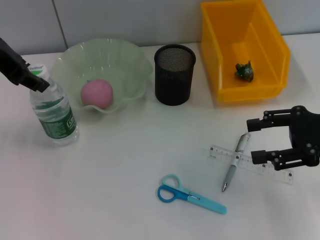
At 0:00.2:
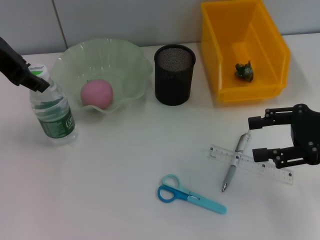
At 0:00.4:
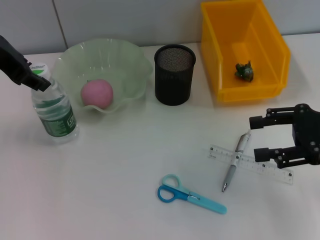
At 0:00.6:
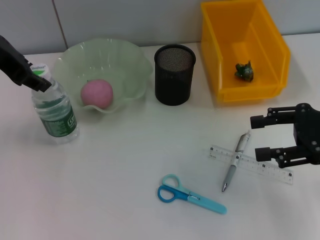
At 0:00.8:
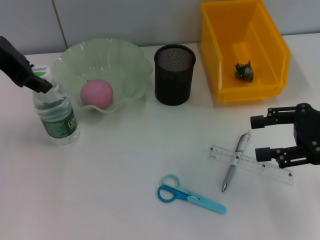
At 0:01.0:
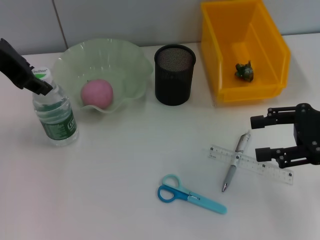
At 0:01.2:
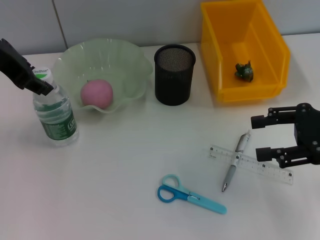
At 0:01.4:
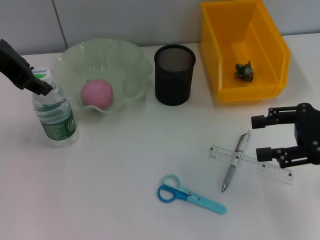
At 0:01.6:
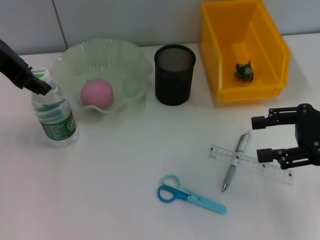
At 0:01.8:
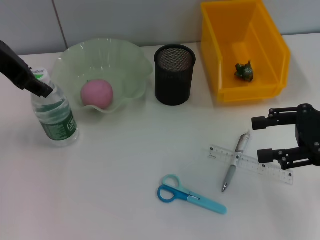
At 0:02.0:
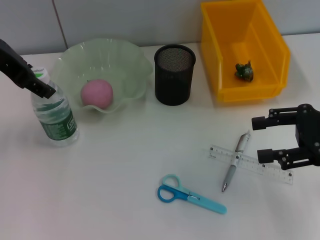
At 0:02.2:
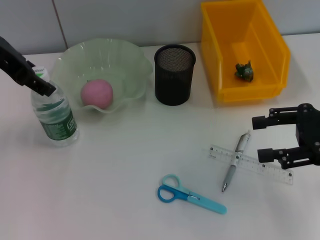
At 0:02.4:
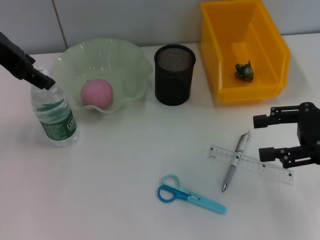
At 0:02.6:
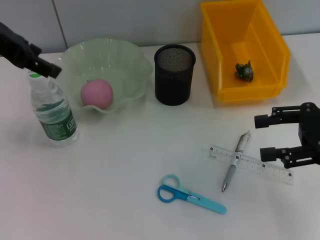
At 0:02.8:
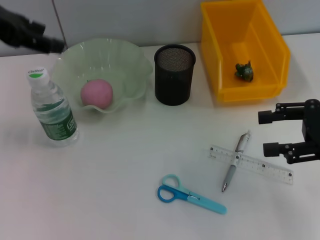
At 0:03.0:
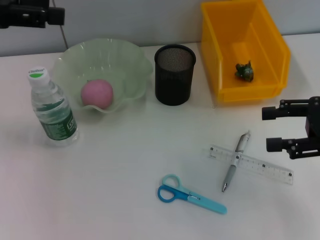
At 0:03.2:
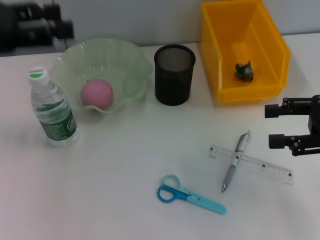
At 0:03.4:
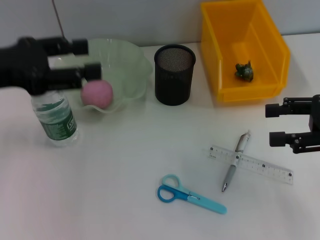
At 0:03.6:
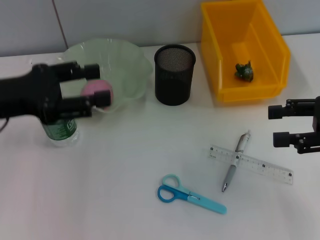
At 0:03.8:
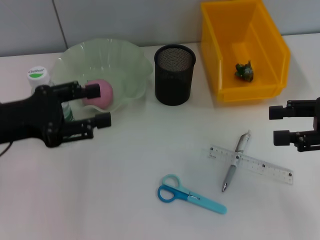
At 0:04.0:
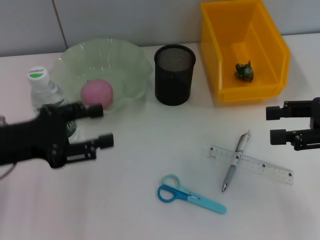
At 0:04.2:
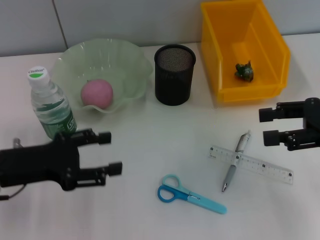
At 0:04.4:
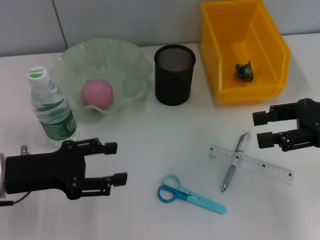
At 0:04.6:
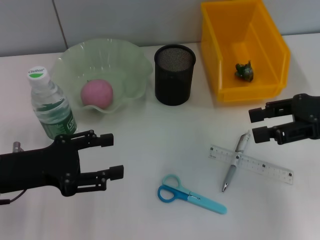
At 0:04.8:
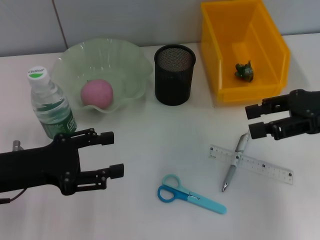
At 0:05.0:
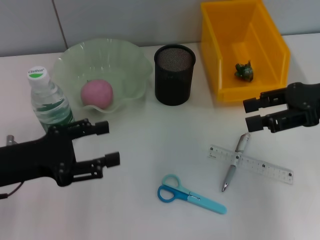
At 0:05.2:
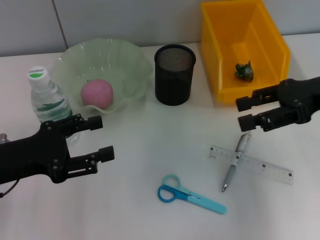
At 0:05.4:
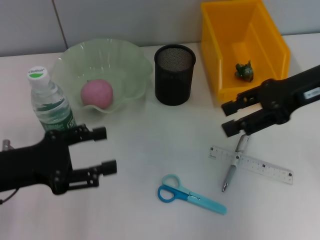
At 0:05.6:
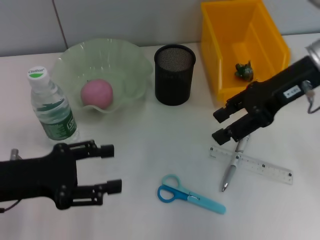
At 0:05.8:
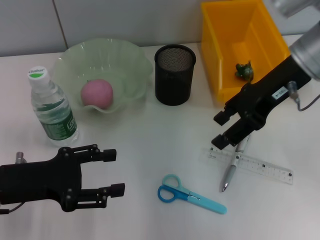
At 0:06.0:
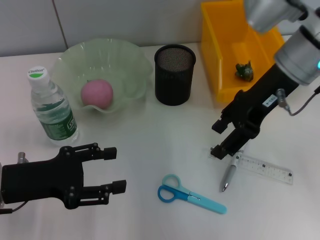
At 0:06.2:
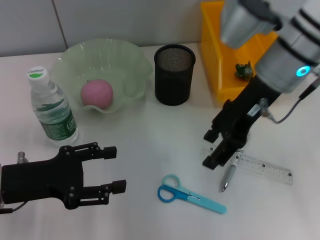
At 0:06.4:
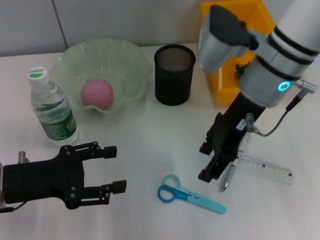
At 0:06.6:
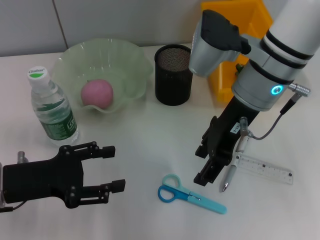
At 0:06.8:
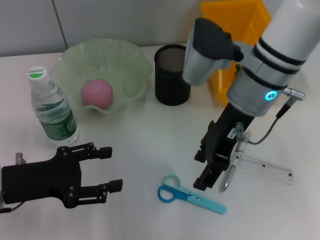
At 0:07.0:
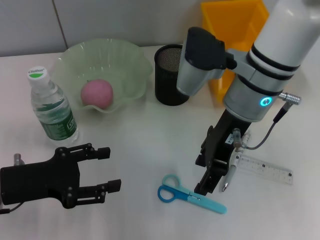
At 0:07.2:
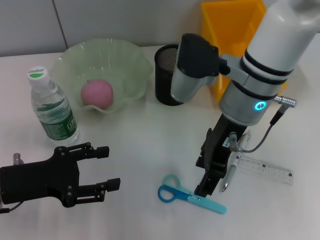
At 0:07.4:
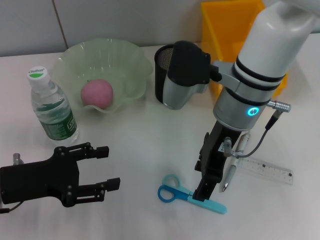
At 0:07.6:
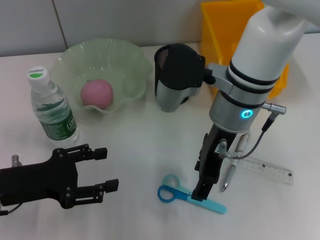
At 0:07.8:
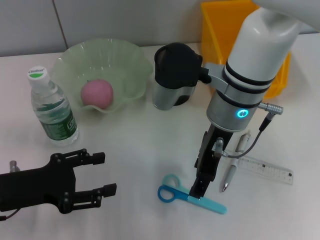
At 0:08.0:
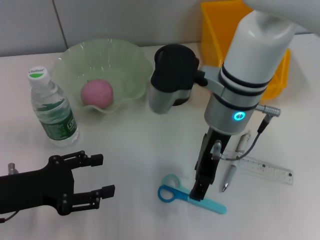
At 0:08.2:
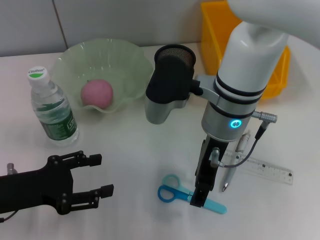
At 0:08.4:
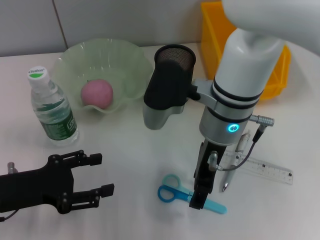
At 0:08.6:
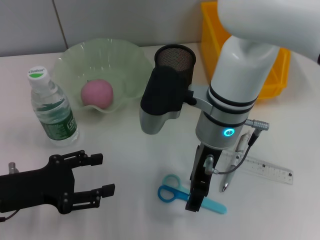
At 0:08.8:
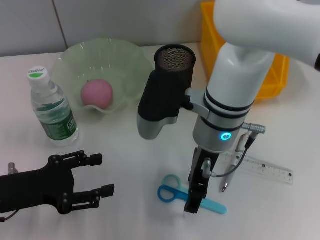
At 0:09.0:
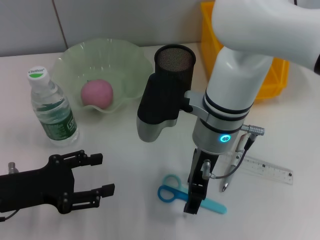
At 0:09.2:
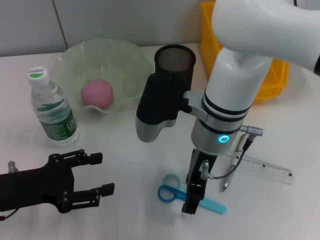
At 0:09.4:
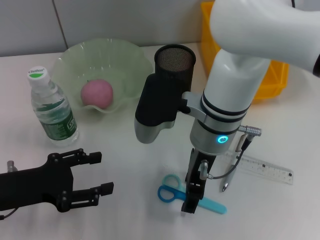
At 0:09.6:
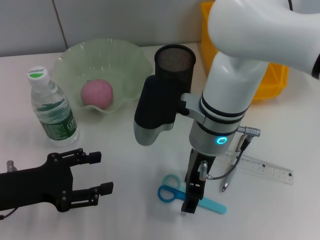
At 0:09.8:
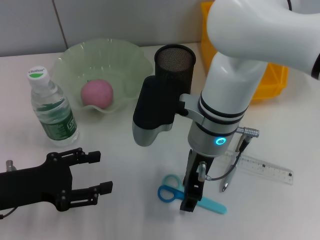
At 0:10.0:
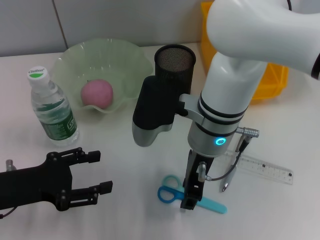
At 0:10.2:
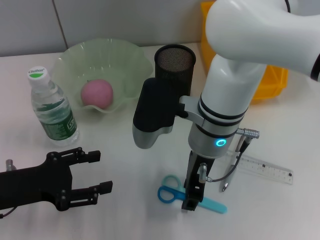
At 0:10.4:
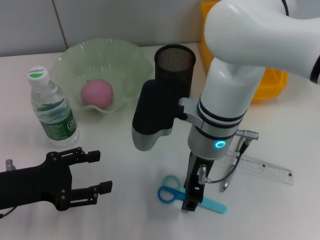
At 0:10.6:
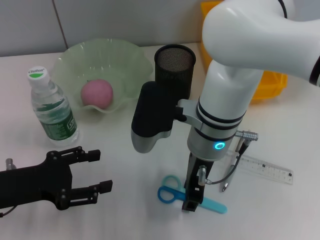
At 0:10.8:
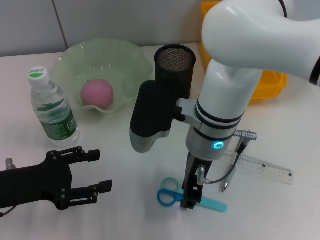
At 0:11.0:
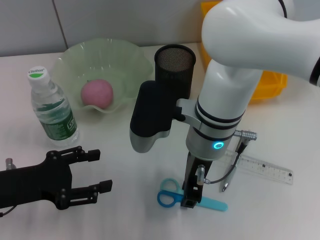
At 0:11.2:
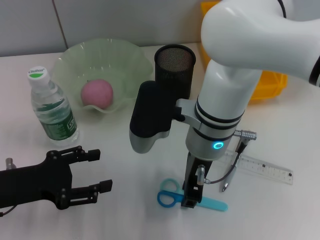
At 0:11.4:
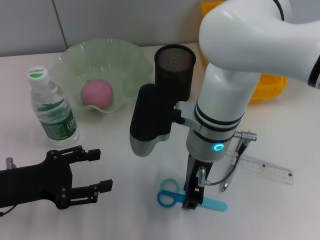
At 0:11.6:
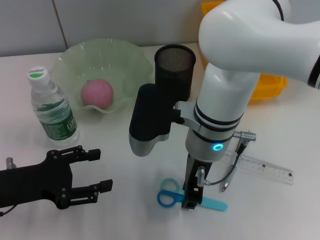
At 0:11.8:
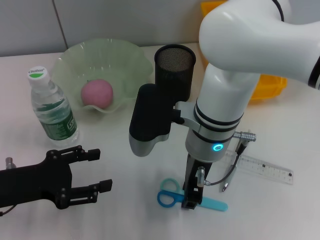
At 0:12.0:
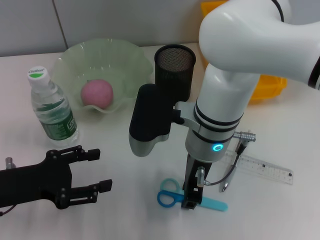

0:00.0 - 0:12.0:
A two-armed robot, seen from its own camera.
0:00.0 - 0:01.6: Both grippers stay put.
0:01.6 - 0:03.0: The left gripper moves to the left, about 5 cm, and opens its fingers.
0:03.0 - 0:04.4: The left gripper shifts some 20 cm downward and backward.
0:04.4 - 0:06.0: The right gripper travels to the left and forward by roughly 15 cm.
0:06.0 - 0:07.6: The right gripper shifts some 10 cm to the left.
0:09.0 - 0:10.4: The right gripper closes up.
0:10.4 - 0:12.0: Both grippers stay about where they are.

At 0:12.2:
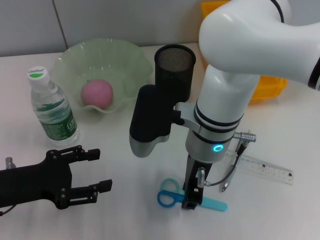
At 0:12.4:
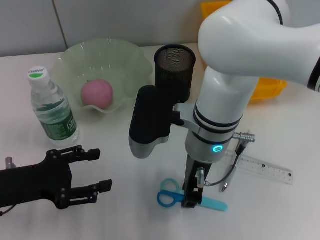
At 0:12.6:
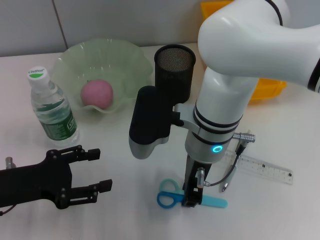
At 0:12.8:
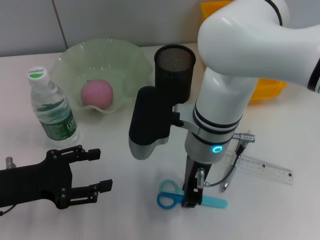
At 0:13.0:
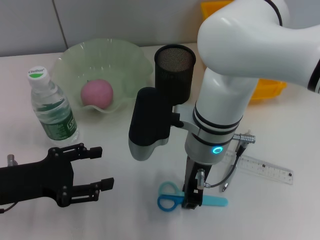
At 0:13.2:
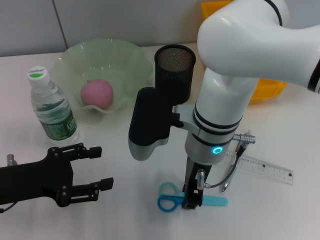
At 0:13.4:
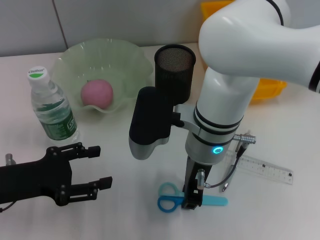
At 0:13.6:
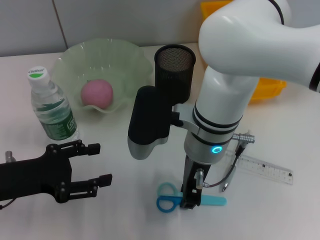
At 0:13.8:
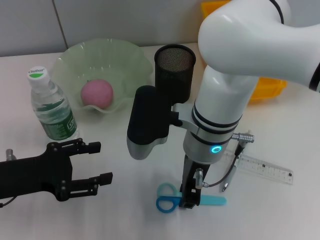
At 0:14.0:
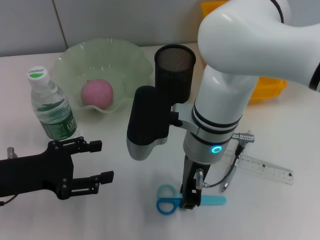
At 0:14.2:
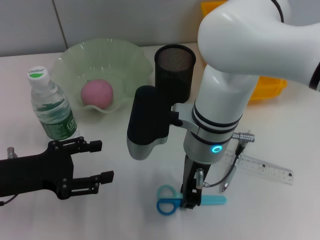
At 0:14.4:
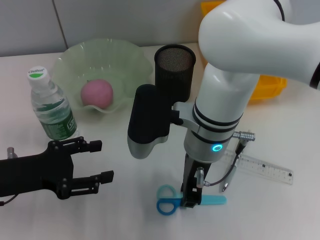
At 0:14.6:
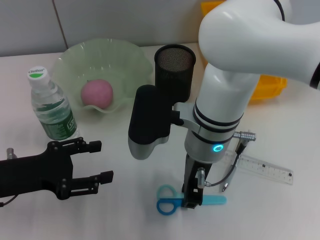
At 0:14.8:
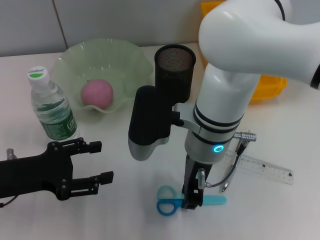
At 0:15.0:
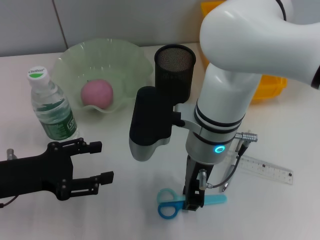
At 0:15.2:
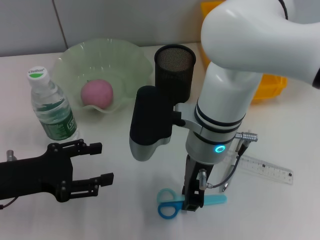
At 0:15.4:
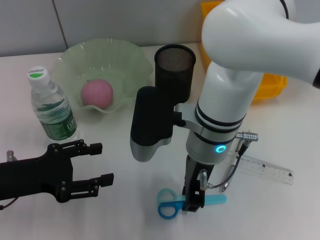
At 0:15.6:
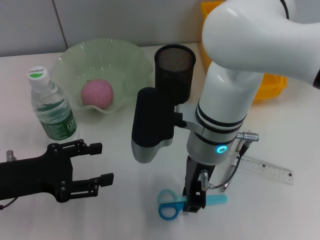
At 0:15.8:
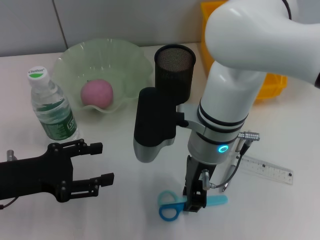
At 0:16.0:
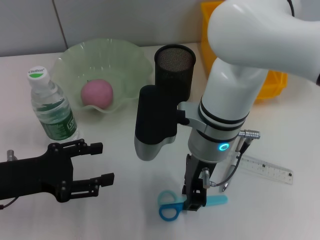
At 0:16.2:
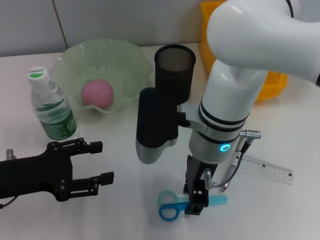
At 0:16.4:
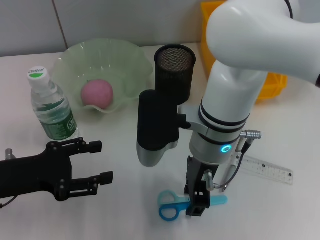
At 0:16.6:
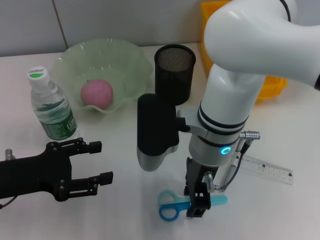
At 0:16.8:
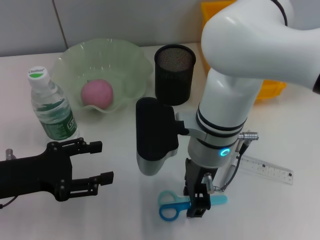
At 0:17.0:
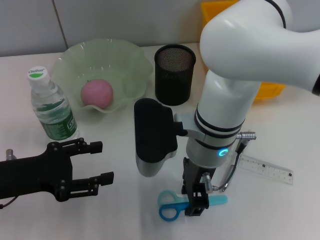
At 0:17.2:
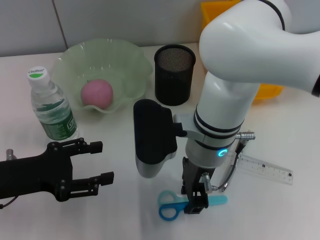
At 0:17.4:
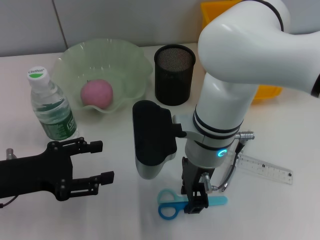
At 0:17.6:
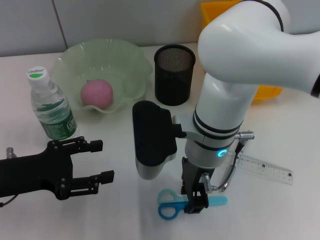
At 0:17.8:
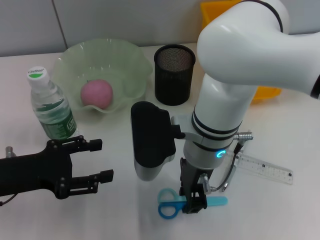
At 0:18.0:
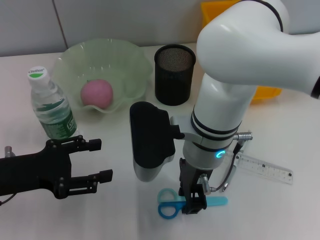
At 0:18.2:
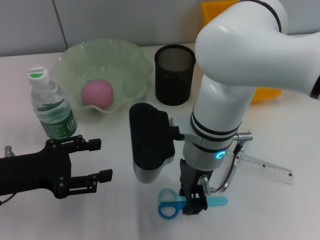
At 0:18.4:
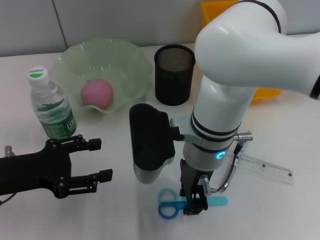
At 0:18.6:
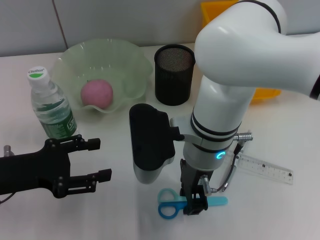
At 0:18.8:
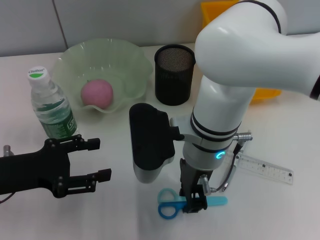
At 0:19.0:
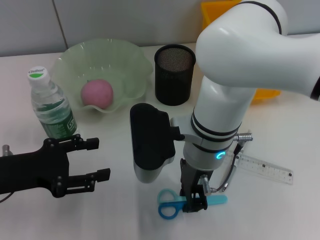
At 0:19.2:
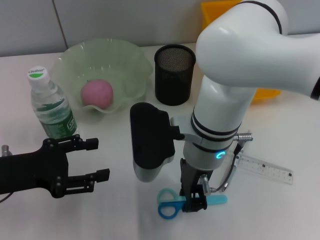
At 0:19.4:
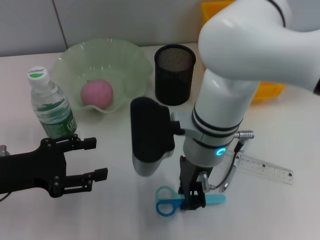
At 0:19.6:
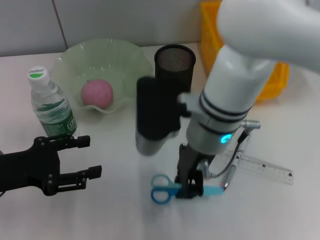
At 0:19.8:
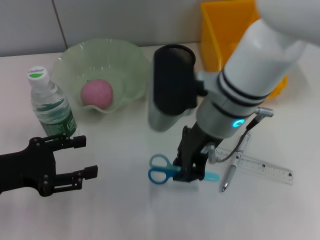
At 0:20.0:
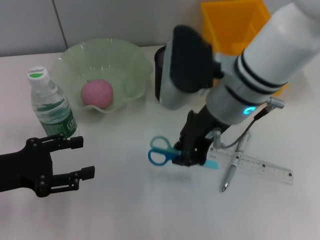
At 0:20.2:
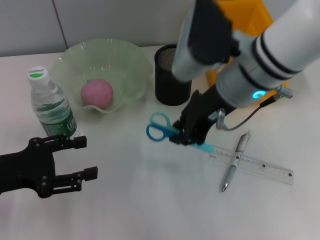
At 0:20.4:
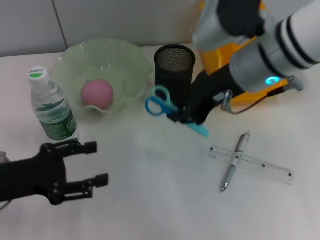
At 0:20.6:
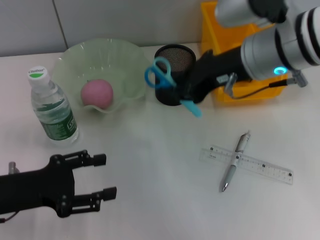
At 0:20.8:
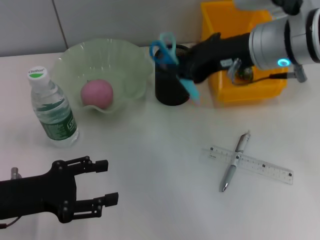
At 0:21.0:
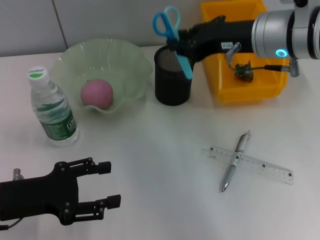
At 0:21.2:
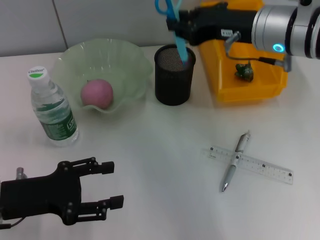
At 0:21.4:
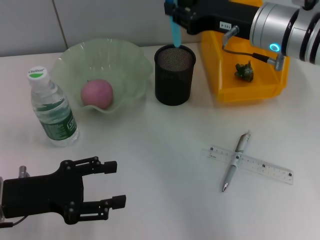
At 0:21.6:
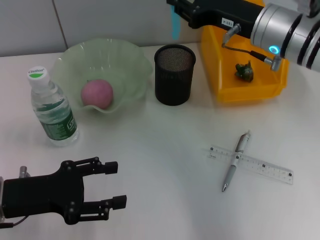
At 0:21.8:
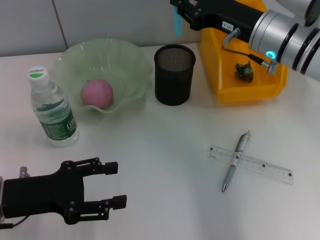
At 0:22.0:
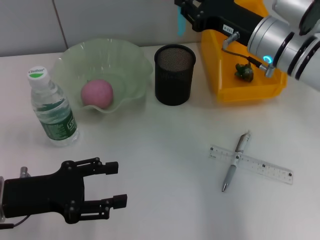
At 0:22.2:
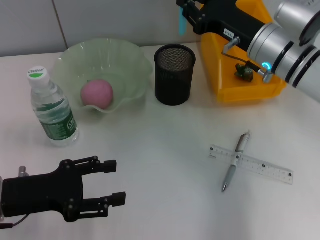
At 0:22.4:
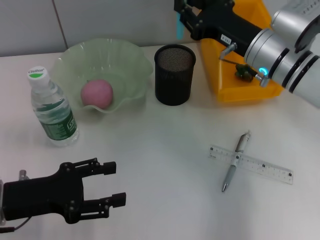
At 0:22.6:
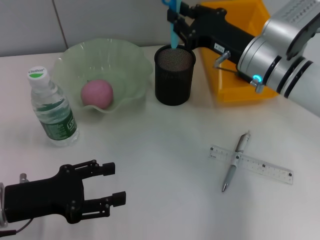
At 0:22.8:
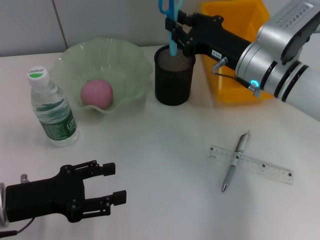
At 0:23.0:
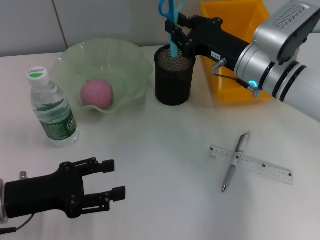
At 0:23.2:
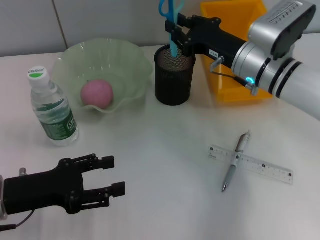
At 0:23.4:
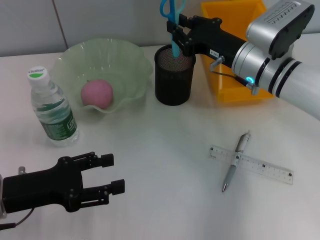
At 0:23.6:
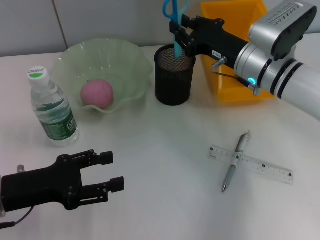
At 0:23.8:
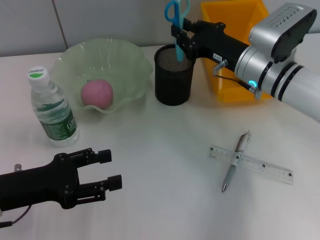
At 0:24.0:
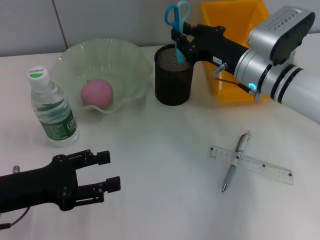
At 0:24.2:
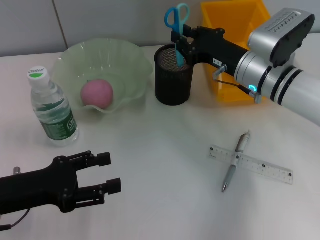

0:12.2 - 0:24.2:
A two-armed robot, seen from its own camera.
Step, 0:12.2 - 0:19.0: Grab the blue scissors with the right hand.
0:12.2 - 0:15.2: Neither gripper changes place.
0:15.2 - 0:18.2: The grippers stay close to where they were, moving slightly.
0:18.2 - 0:19.8: The right gripper moves roughly 5 cm.
0:19.8 - 0:21.2: The right gripper shifts about 10 cm to the right.
0:21.2 - 0:22.6: The right gripper moves downward, some 10 cm.
0:22.6 - 0:24.2: There are only small adjustments of the grippers.
